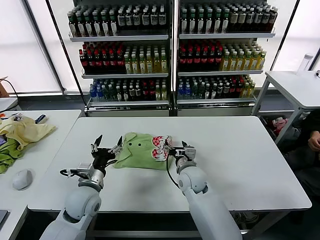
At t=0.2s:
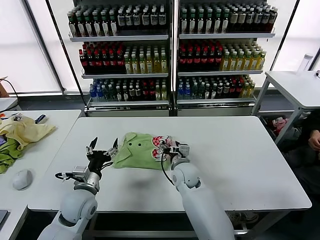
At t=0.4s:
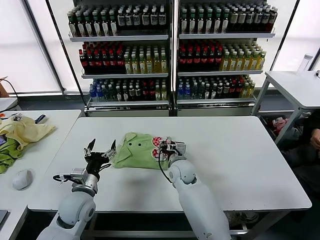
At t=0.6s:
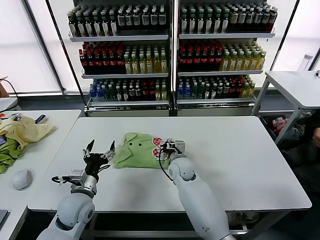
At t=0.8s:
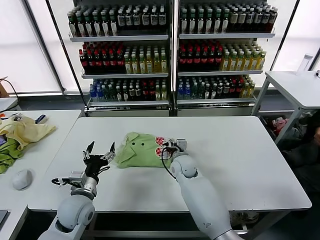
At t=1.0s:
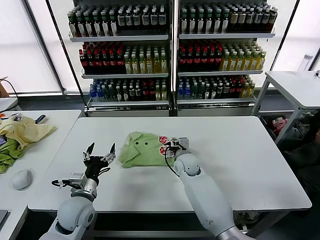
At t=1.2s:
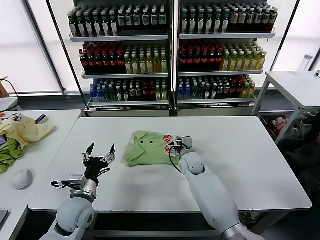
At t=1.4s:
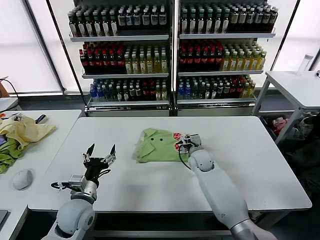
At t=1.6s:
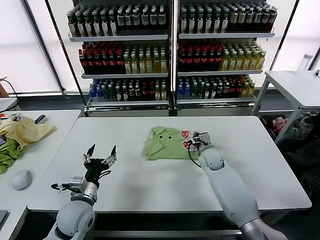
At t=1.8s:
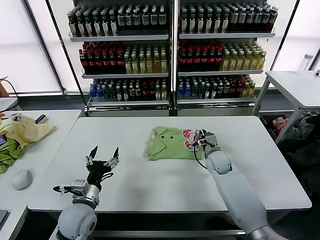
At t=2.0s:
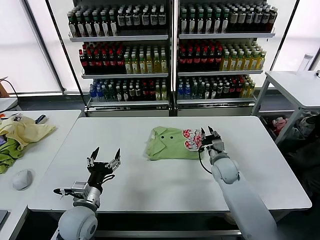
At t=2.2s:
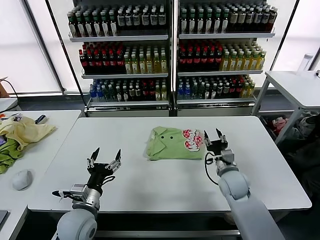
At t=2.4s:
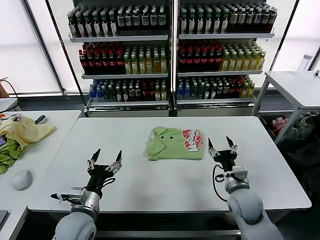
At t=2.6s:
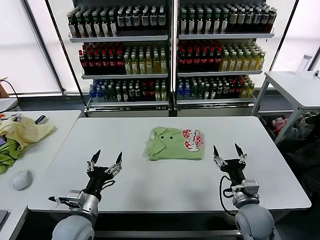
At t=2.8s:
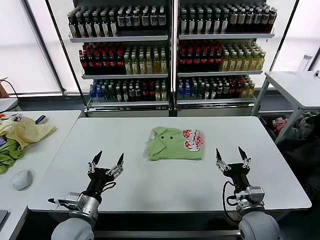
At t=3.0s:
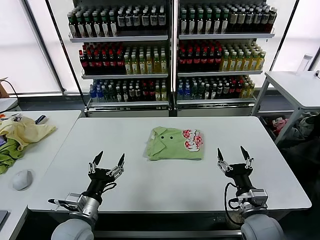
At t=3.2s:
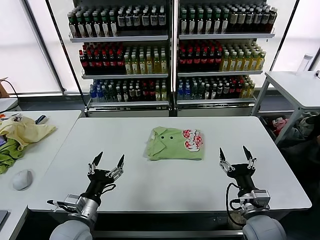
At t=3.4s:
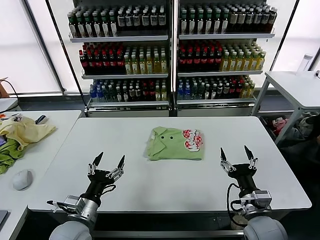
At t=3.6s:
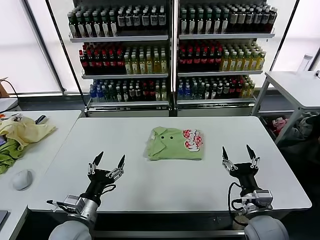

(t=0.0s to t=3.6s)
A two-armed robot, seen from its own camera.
Task of the whole recording: fold and organize the clothes.
Step, t=0.0s - t=1.8s: Drag the clothes to the center of the table.
t=0.0s - t=1.8s: The left gripper shifts by some 5 cm, while the right gripper travels to the right and forward by approximately 15 cm, and closes its fingers.
t=1.8s - t=3.6s: The right gripper is displaced backward by about 25 cm, and opens its fingers. The left gripper shifts about 5 cm backward.
